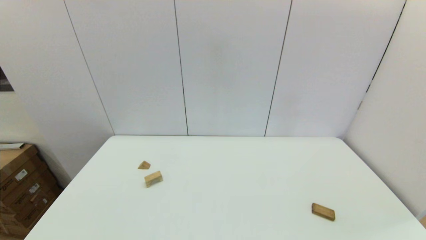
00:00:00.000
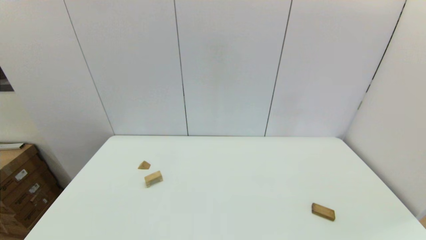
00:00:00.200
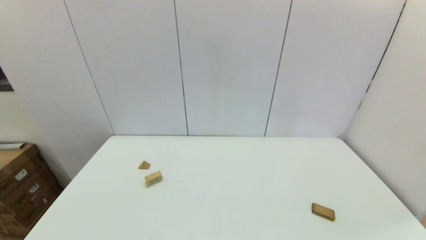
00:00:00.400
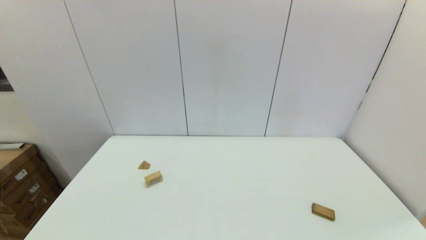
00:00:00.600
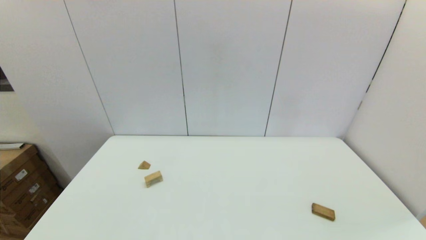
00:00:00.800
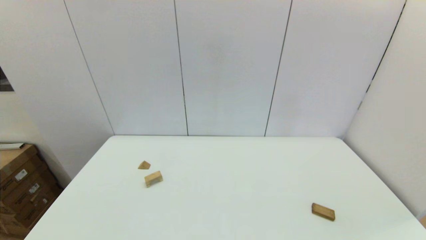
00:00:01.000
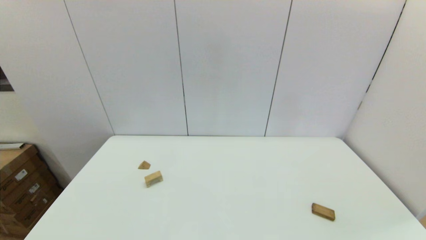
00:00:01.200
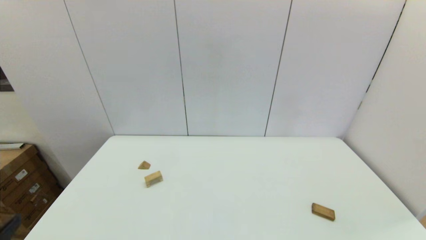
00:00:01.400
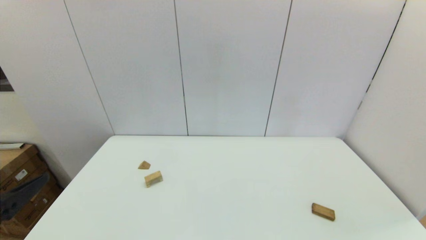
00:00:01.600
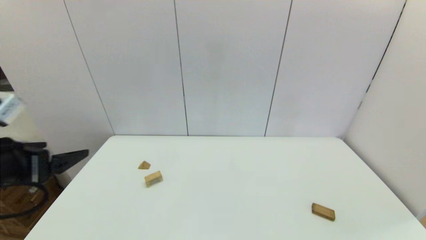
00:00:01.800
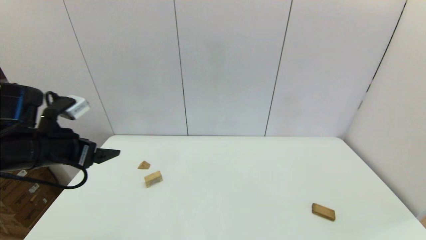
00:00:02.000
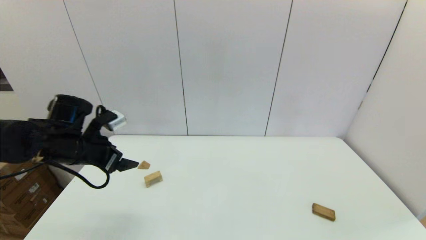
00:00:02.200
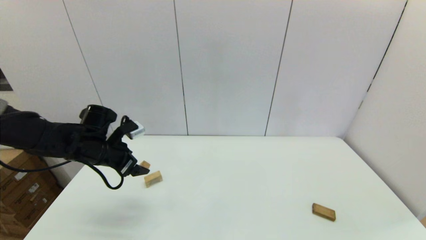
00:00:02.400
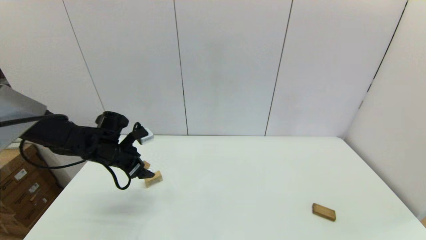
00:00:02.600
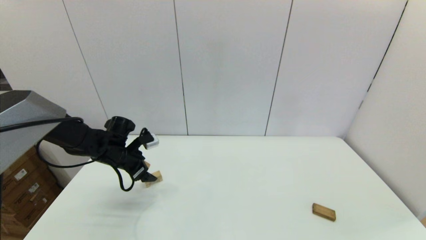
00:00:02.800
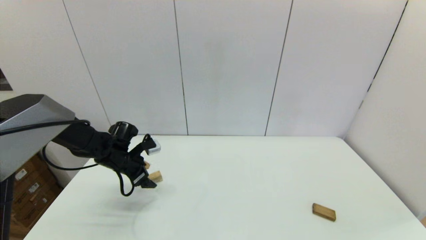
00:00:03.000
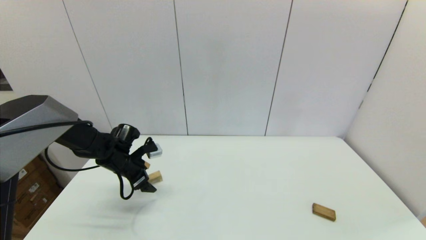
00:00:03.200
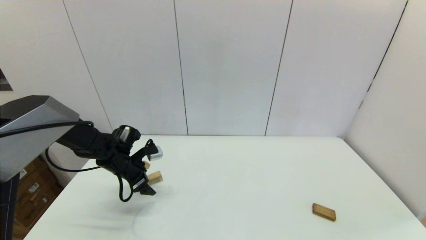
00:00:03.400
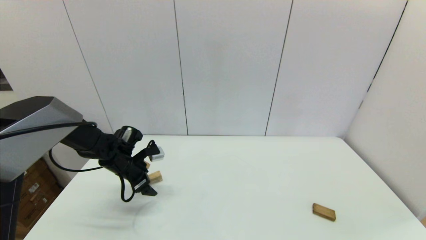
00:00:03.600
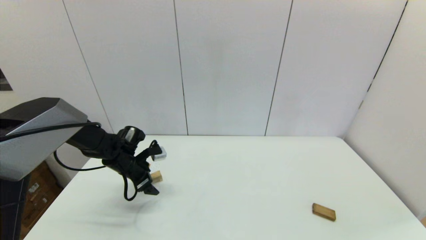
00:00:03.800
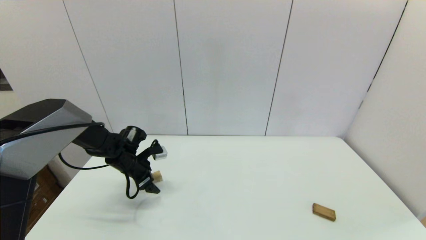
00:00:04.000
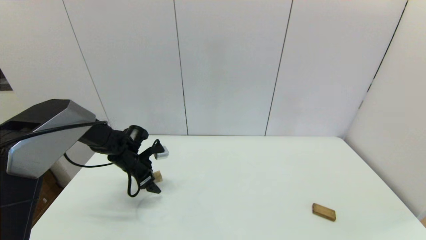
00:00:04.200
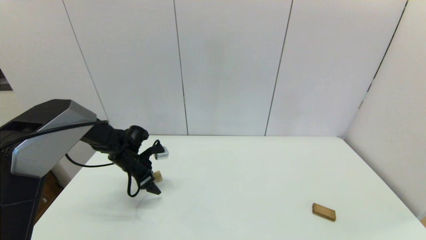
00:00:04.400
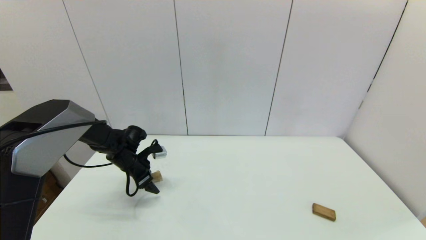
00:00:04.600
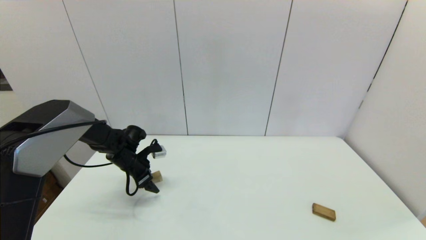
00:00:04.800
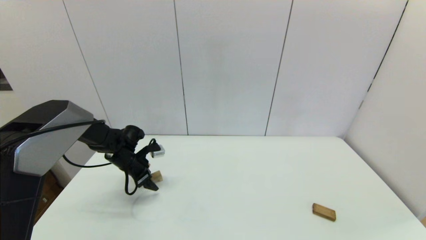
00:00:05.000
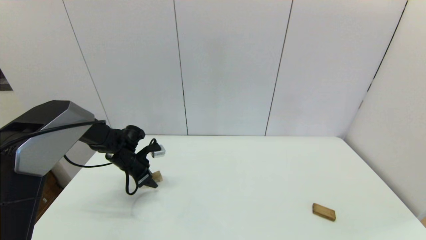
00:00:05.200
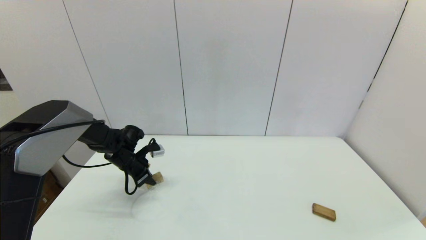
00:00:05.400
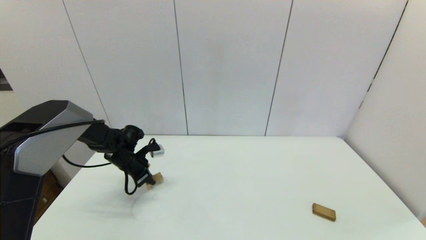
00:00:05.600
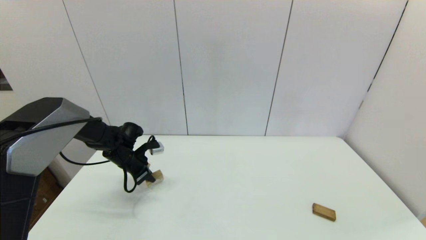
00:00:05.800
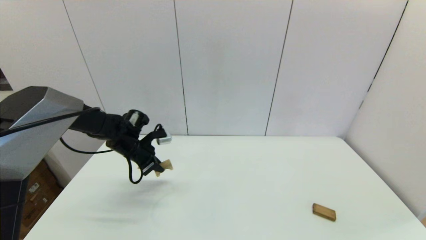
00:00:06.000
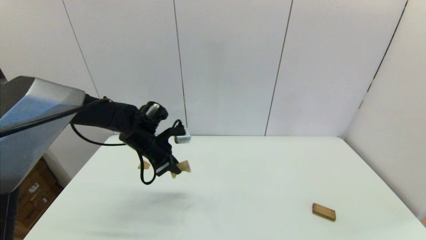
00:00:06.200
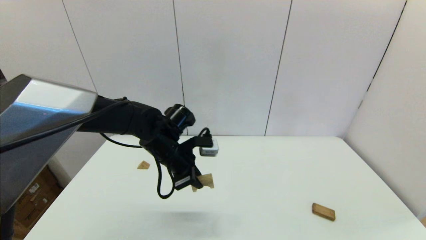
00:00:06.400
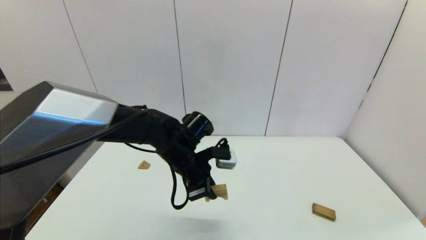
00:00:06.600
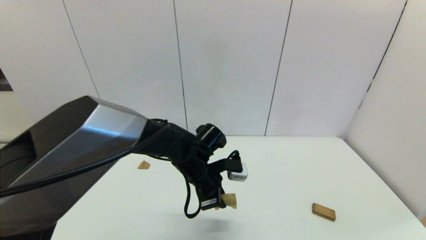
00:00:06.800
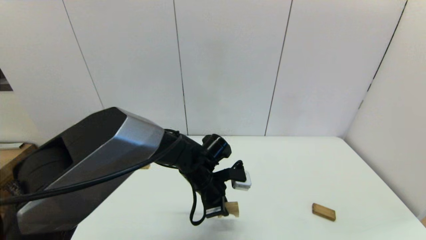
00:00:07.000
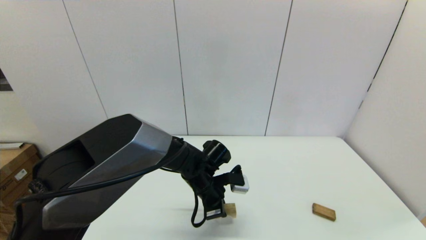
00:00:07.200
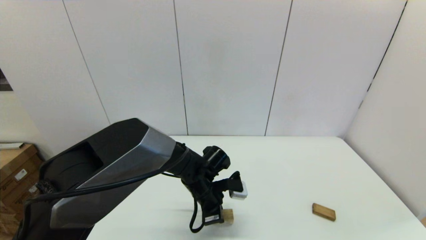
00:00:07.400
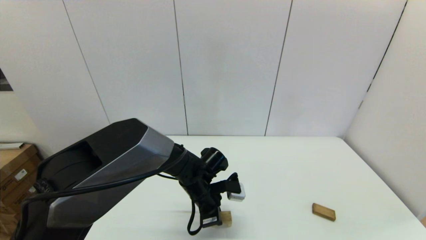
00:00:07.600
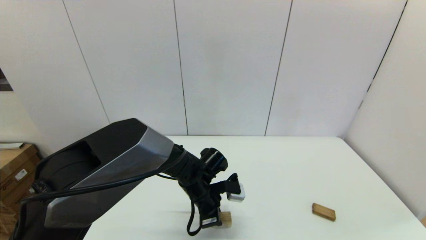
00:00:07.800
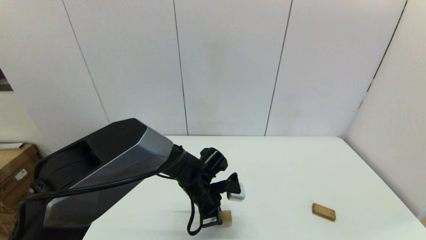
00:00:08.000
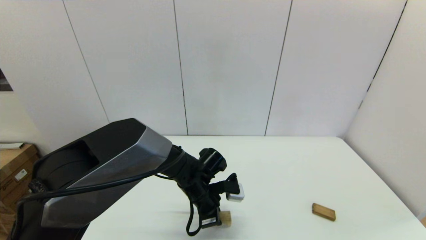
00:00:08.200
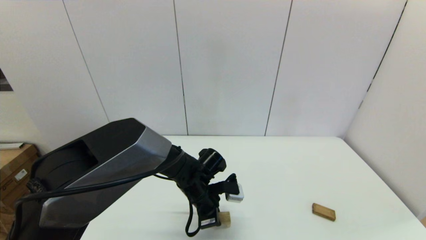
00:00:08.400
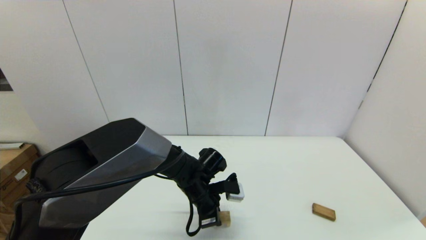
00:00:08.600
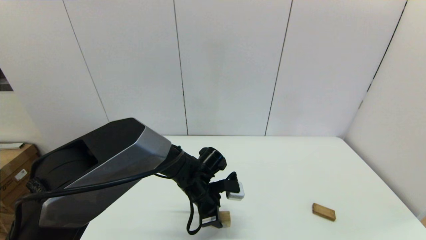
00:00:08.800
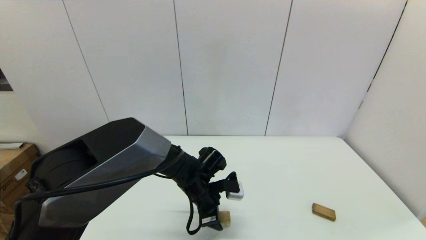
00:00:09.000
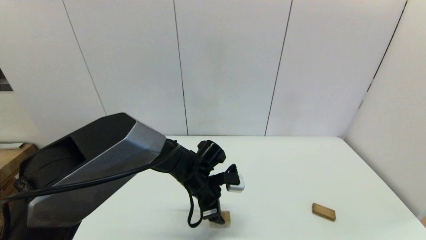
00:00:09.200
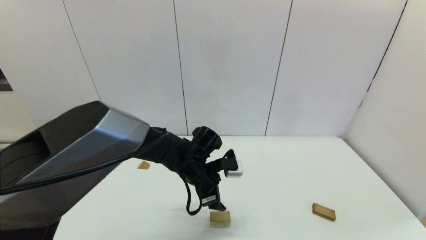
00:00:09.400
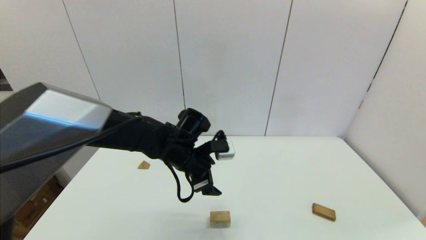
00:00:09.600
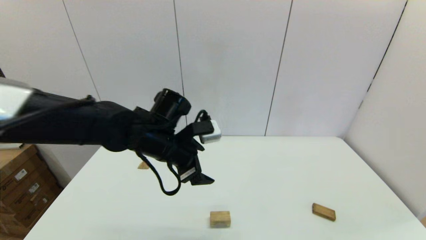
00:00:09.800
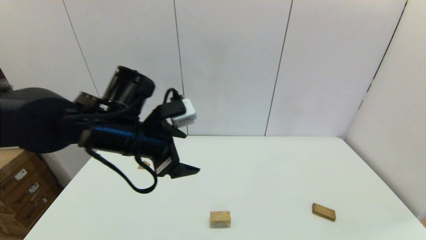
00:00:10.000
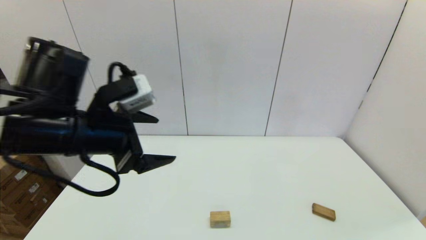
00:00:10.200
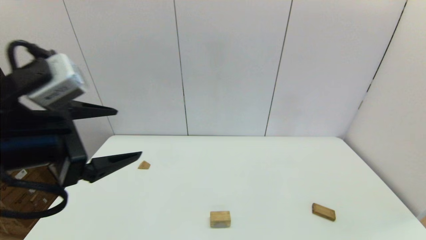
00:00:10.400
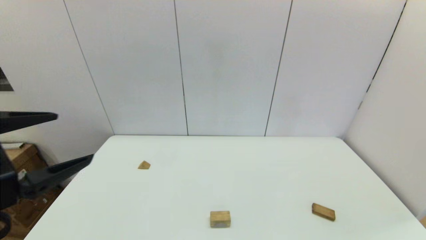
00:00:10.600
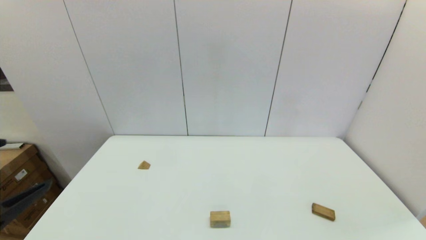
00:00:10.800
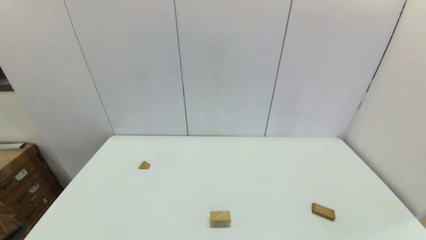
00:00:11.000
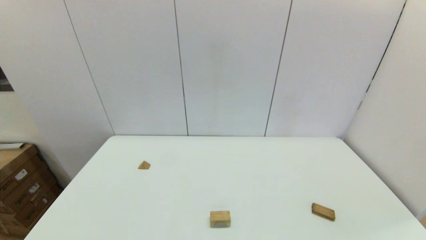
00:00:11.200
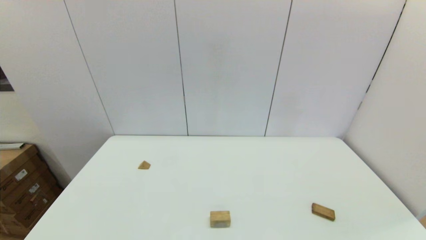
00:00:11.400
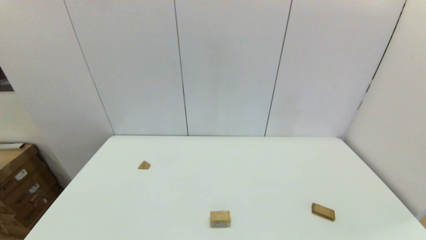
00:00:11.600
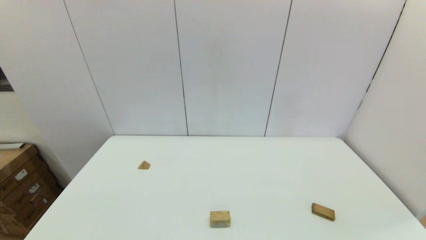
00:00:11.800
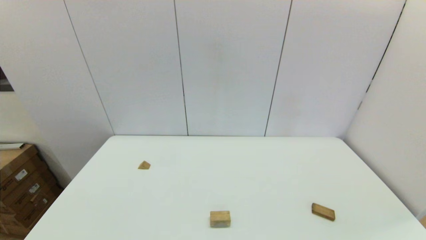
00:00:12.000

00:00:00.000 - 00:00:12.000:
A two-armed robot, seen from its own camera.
Task of the whole recording: place the arched building blocks in the center of the table, set up the rectangular building blocks, and then set up the triangular building blocks.
Step, 00:00:01.400 - 00:00:05.400: Grasp the arch-shaped block with the left gripper.
Step, 00:00:05.600 - 00:00:08.600: Place the arch-shaped block in the center of view with the left gripper.
00:00:01.600 - 00:00:03.000: The left gripper shifts some 35 cm forward and downward.
00:00:03.000 - 00:00:04.400: There are only small adjustments of the grippers.
00:00:04.400 - 00:00:06.000: The left gripper travels upward by roughly 5 cm, and closes its fingers.
00:00:06.000 - 00:00:07.600: The left gripper goes approximately 20 cm to the right and backward.
00:00:07.600 - 00:00:09.000: The left gripper opens.
00:00:09.000 - 00:00:10.400: The left gripper moves upward, to the left and backward, approximately 35 cm.
00:00:10.400 - 00:00:12.000: The left gripper is displaced downward and backward by about 25 cm.

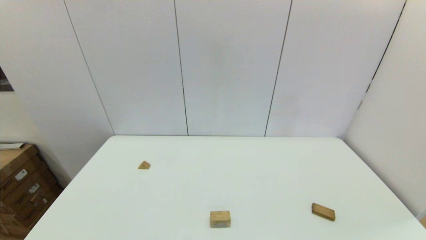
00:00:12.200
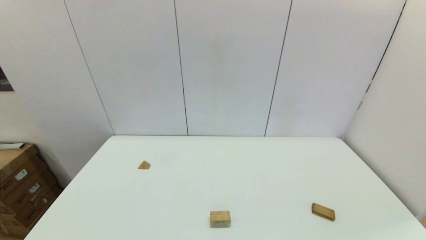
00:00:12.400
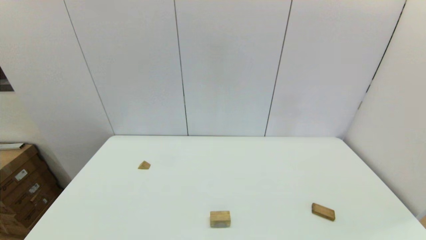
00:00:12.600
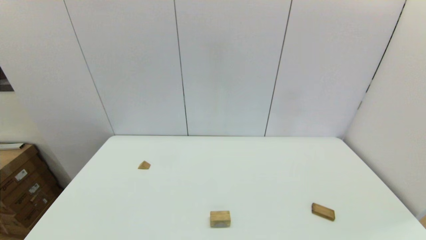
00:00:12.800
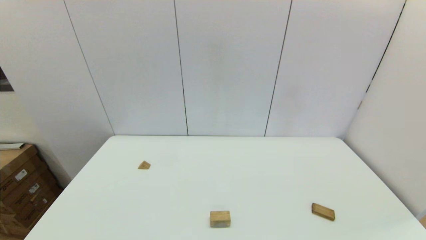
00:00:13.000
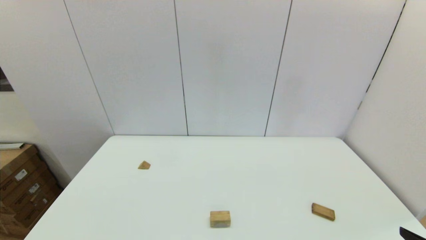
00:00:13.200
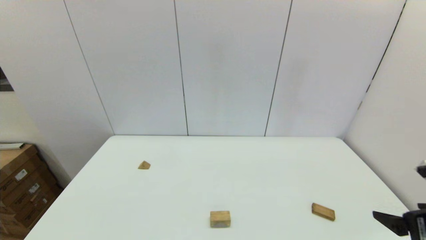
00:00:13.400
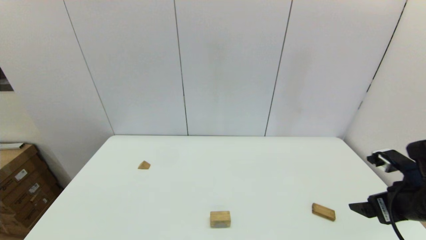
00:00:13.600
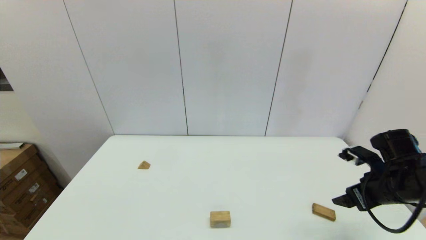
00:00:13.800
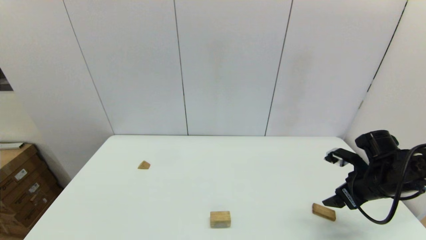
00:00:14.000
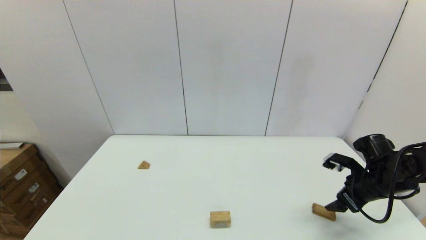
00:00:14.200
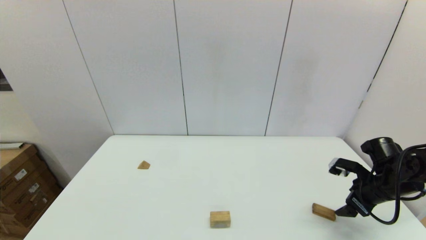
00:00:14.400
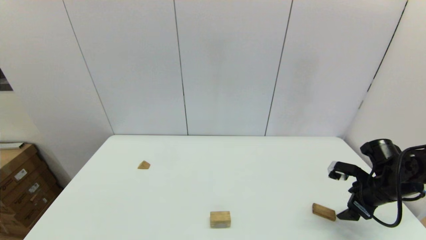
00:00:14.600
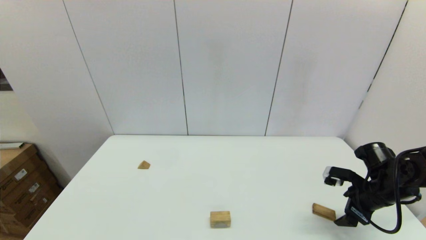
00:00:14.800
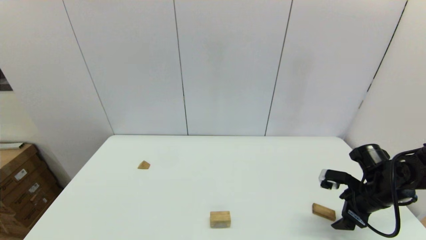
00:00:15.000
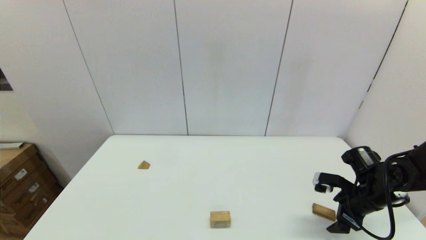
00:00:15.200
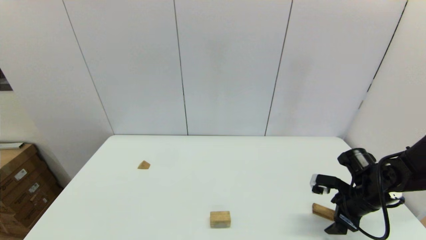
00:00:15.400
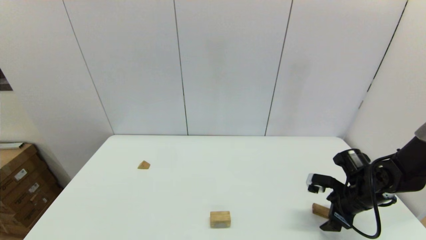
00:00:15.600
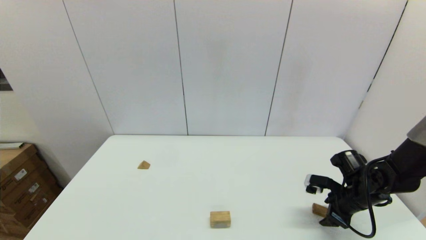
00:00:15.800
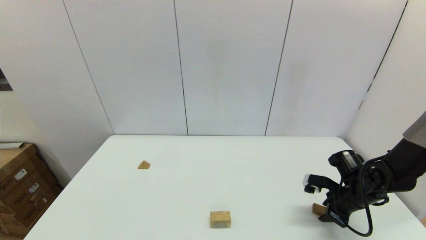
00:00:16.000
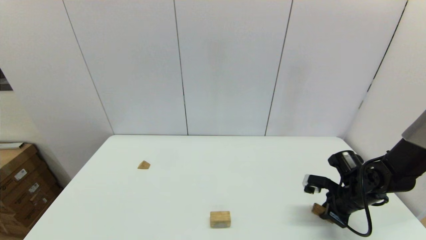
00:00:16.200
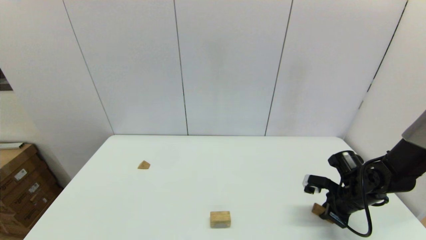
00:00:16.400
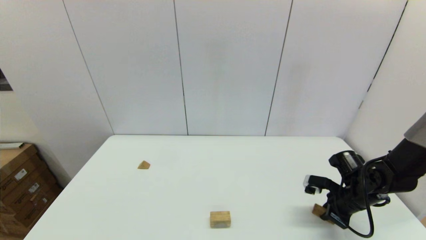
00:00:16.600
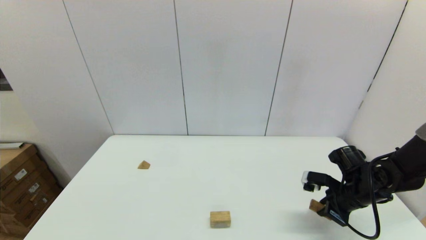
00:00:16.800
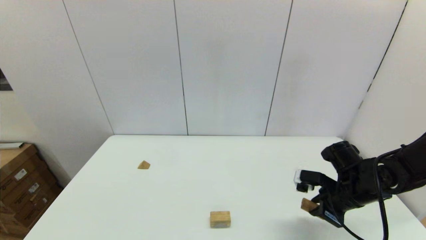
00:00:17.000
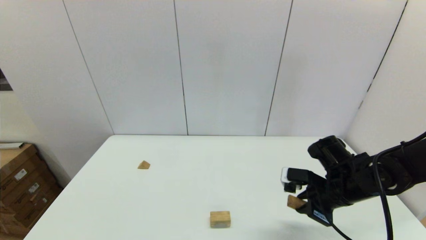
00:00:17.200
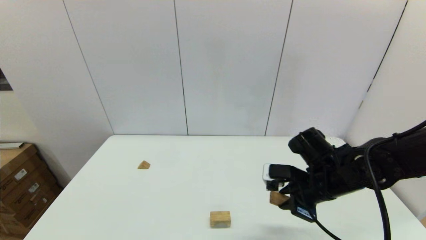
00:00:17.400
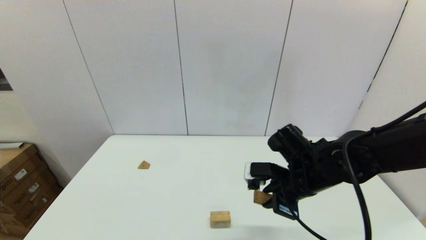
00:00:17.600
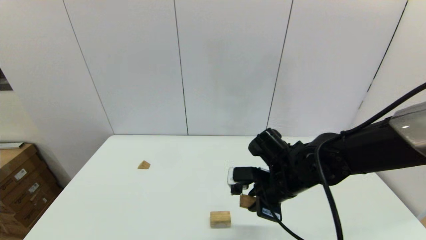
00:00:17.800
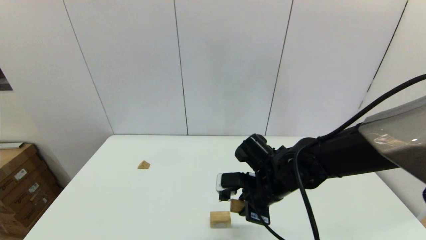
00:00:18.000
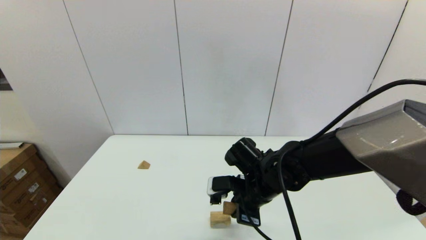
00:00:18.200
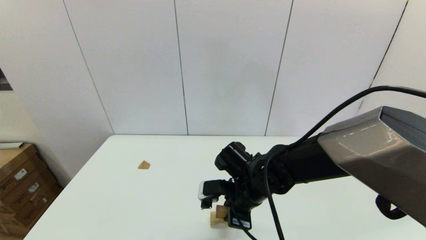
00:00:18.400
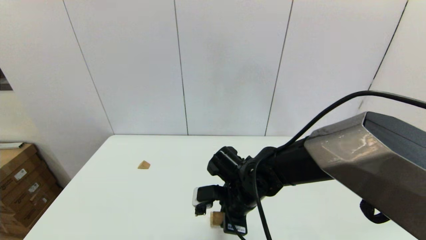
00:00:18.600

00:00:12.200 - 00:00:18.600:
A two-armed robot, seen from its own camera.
Task of the whole recording: place the arched building blocks in the center of the table, set up the rectangular building blocks, and then set up the triangular building blocks.
Step, 00:00:12.200 - 00:00:16.000: Grasp the box-shaped block with the right gripper.
00:00:12.200 - 00:00:13.800: The right gripper shifts approximately 25 cm forward.
00:00:13.800 - 00:00:15.400: The right gripper is displaced downward by approximately 10 cm.
00:00:15.400 - 00:00:17.000: The right gripper shifts approximately 5 cm to the left, and closes.
00:00:17.000 - 00:00:18.600: The right gripper shifts about 25 cm to the left.
